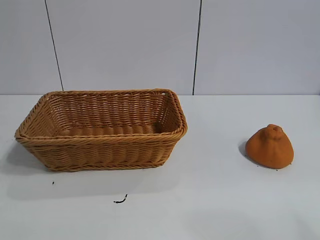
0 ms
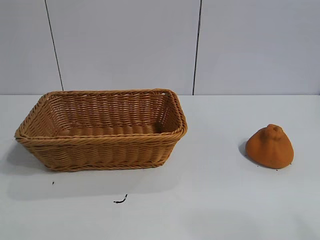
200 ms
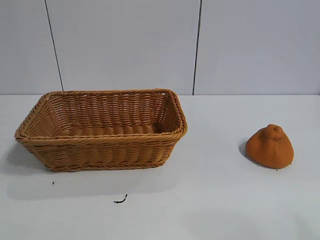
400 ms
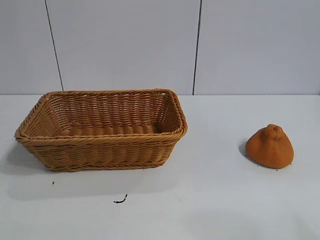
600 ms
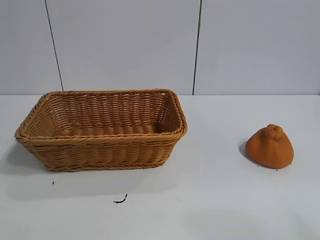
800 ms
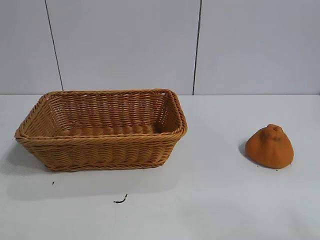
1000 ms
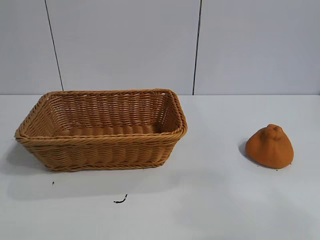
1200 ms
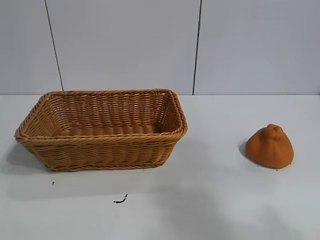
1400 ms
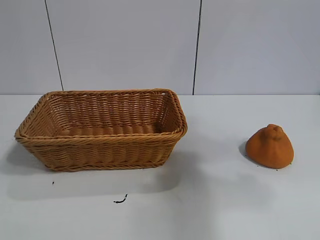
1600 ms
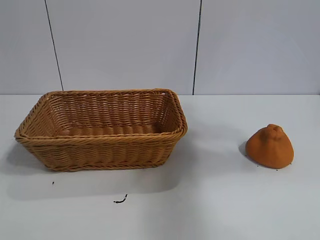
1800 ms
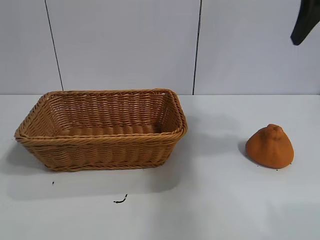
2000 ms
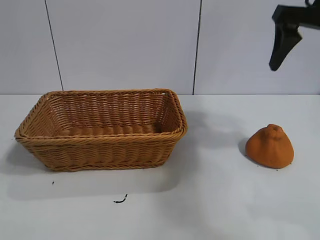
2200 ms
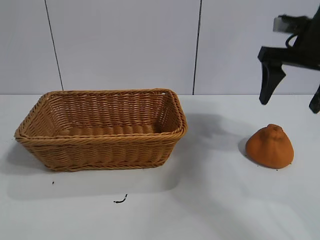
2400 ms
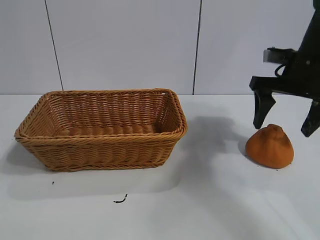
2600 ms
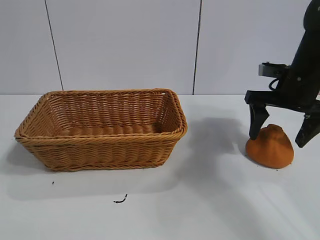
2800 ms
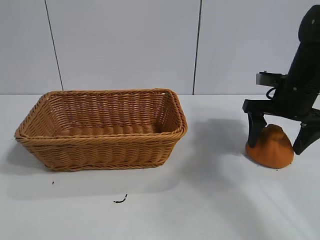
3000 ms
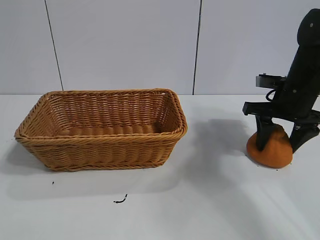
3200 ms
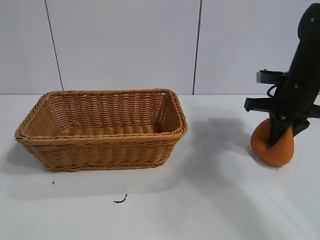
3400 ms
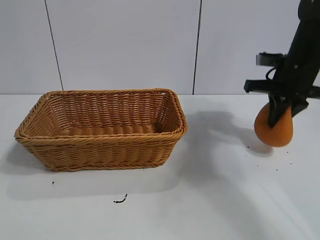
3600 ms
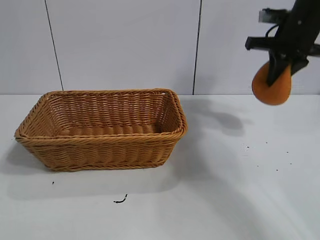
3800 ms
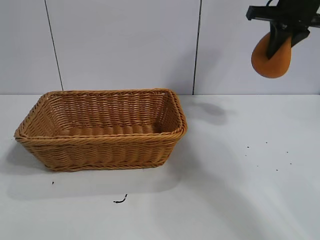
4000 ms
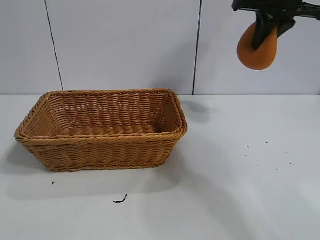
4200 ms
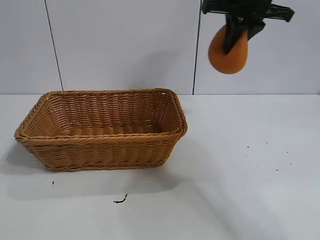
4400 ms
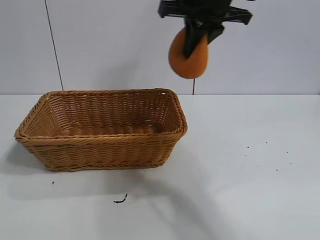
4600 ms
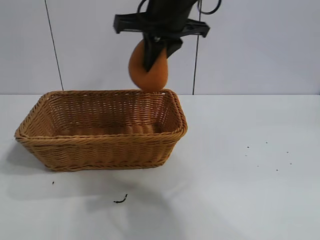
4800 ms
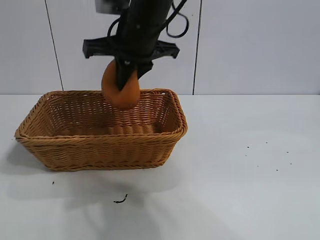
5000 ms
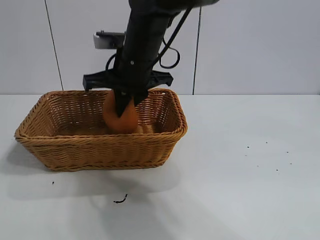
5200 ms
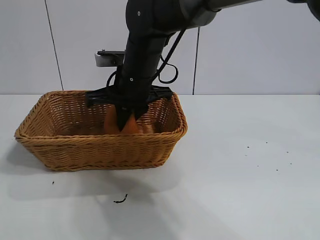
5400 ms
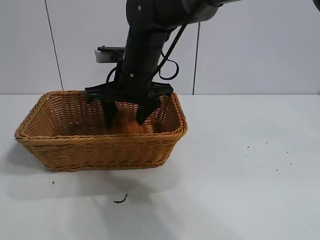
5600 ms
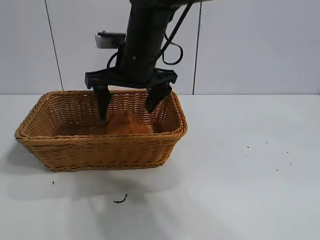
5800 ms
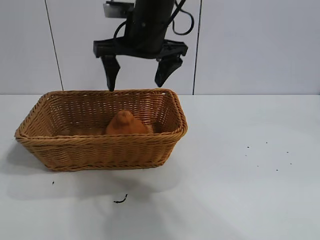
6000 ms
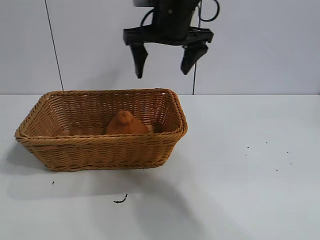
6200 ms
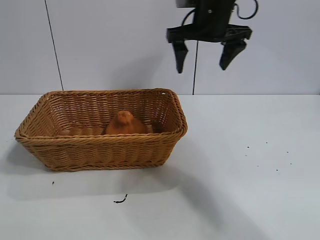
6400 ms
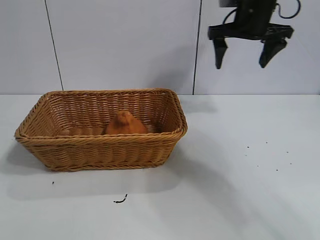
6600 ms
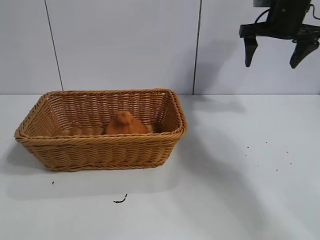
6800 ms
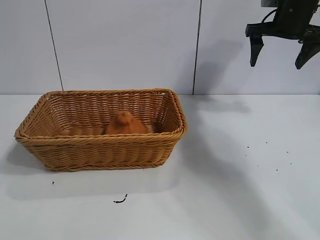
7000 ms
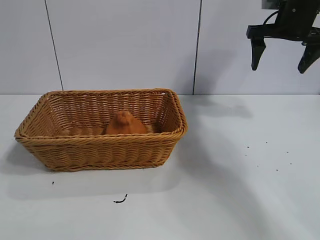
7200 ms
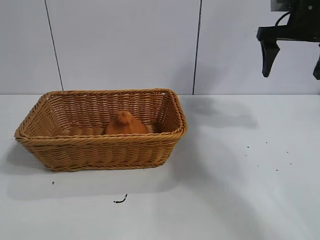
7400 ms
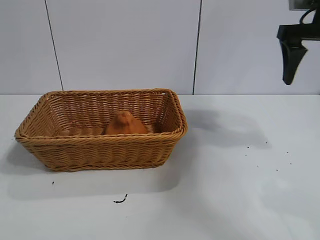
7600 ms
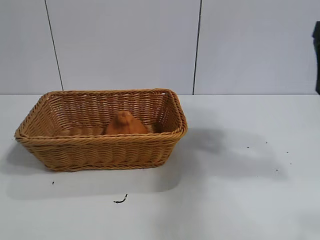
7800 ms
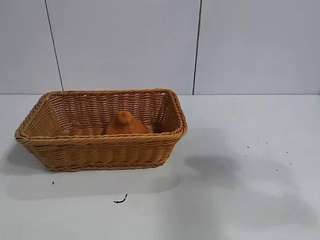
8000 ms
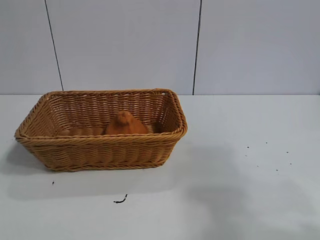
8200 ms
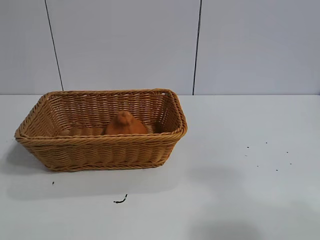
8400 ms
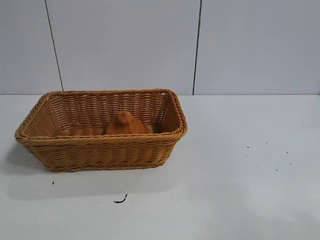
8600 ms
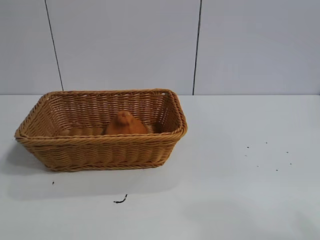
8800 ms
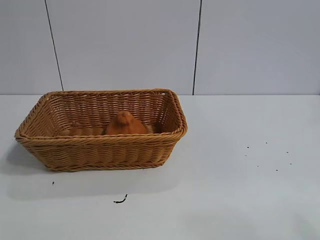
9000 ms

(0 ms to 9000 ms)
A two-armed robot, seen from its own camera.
Task of the whole recording: pick up the orange and put it into the basket.
Step, 800 ms - 3200 ms: Grasp the orange with right gripper.
Step, 3400 ms - 5800 ms: Place the orange in the basket with right gripper.
